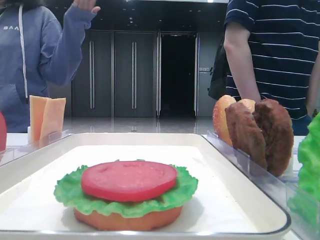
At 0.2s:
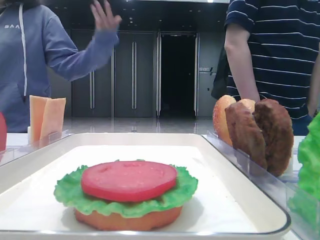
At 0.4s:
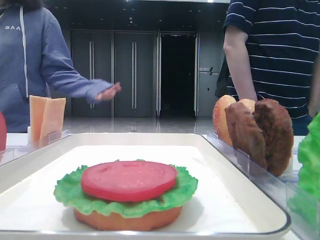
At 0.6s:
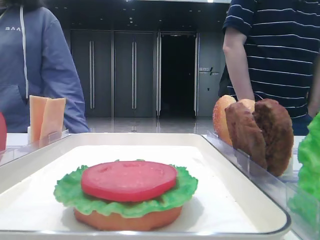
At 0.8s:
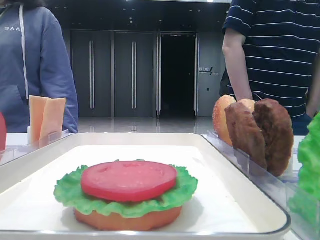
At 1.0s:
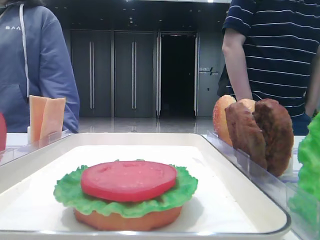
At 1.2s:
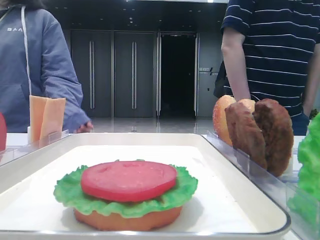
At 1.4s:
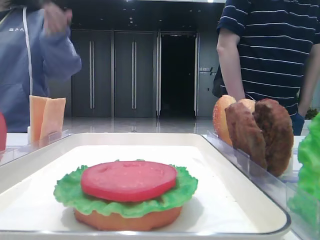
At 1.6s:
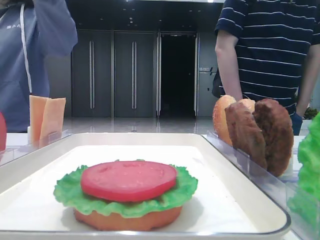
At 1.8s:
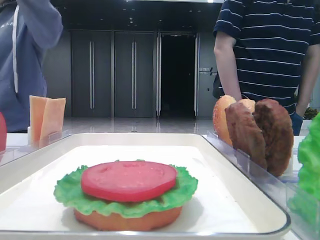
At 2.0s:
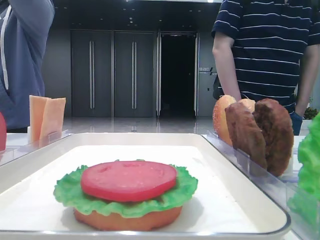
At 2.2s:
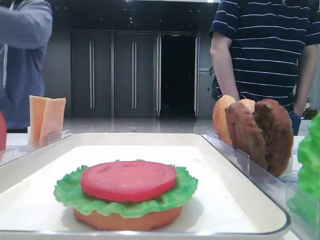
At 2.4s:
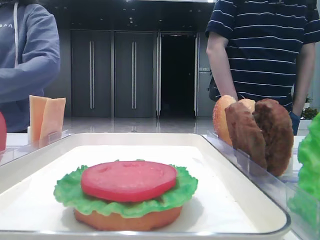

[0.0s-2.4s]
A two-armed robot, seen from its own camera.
0.0s to 2.4s: The grippers stay close to where they were, moving slightly.

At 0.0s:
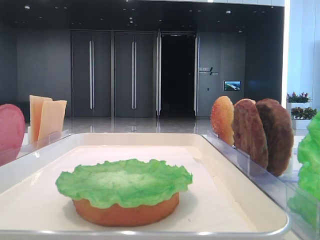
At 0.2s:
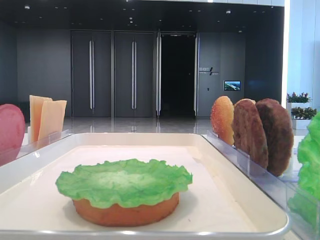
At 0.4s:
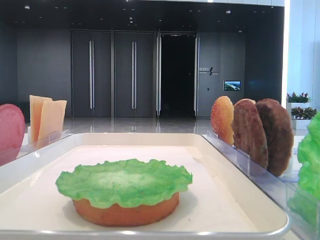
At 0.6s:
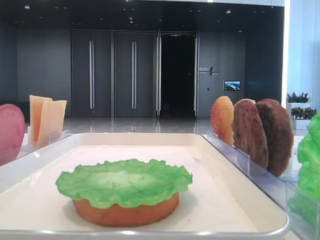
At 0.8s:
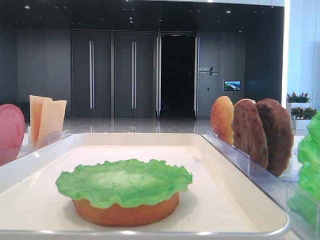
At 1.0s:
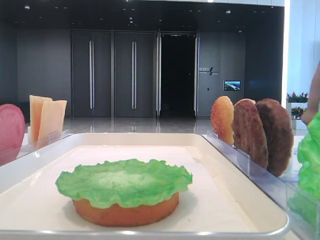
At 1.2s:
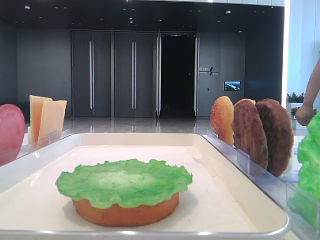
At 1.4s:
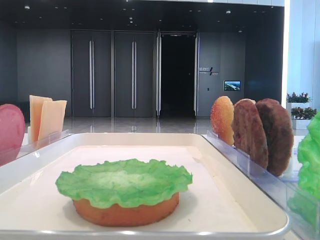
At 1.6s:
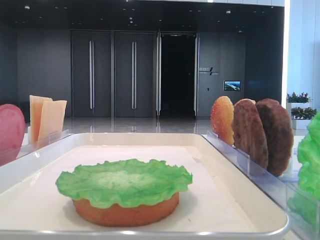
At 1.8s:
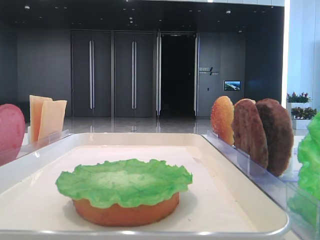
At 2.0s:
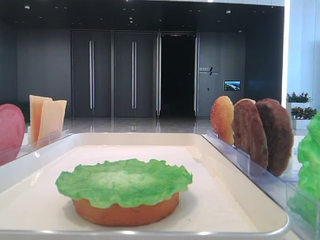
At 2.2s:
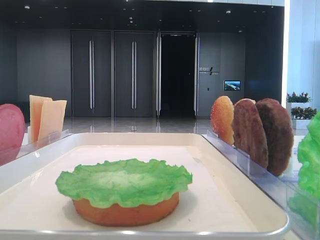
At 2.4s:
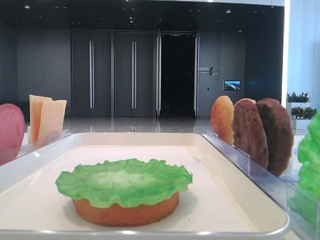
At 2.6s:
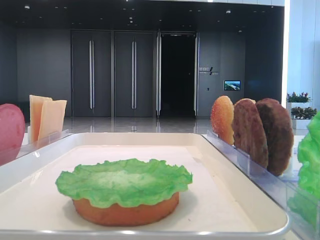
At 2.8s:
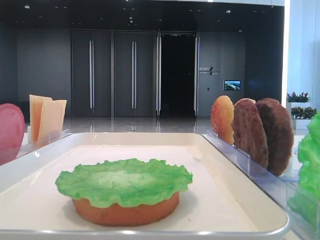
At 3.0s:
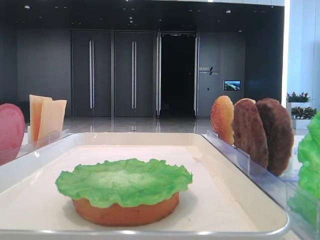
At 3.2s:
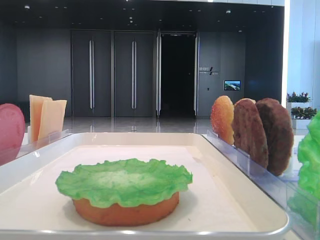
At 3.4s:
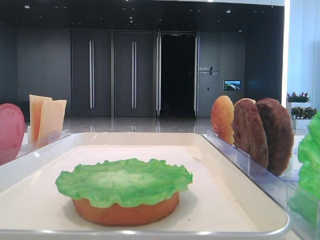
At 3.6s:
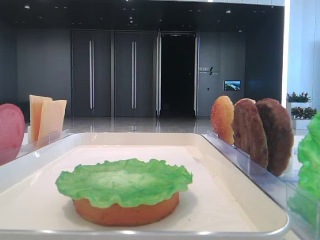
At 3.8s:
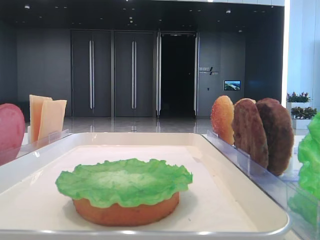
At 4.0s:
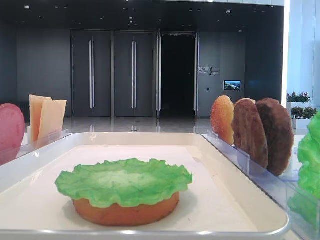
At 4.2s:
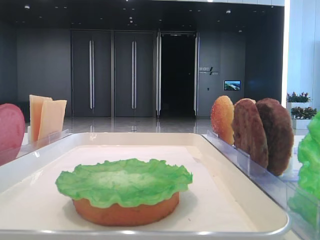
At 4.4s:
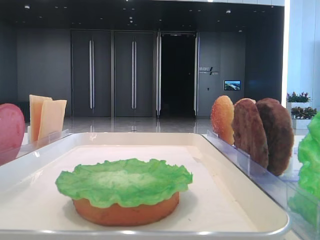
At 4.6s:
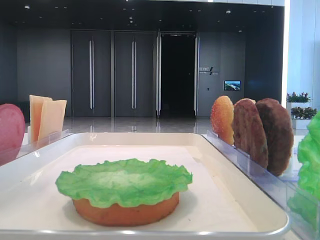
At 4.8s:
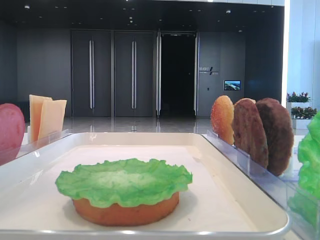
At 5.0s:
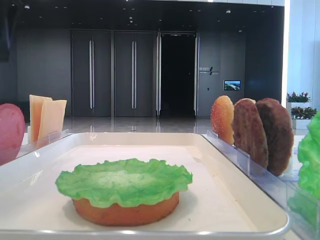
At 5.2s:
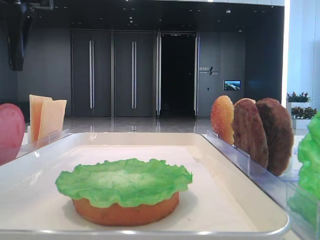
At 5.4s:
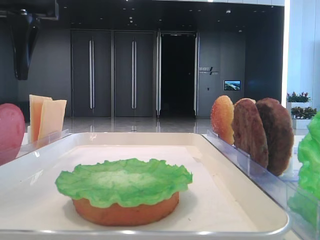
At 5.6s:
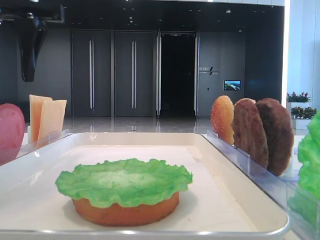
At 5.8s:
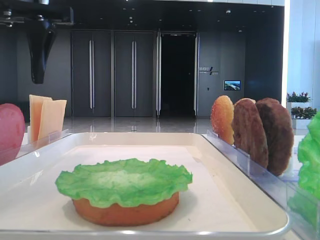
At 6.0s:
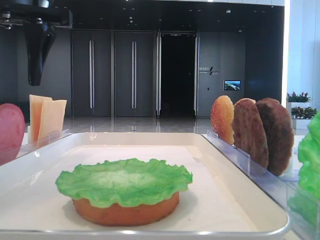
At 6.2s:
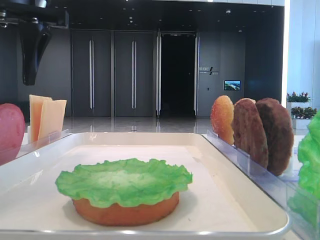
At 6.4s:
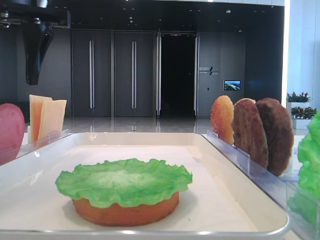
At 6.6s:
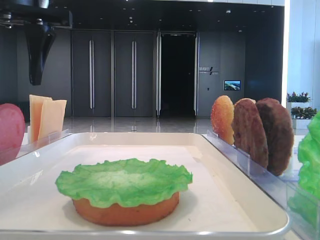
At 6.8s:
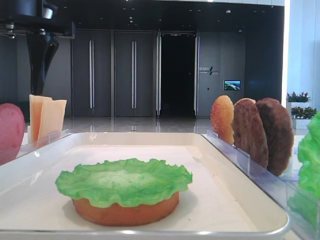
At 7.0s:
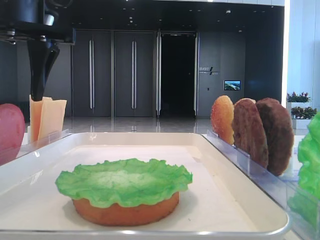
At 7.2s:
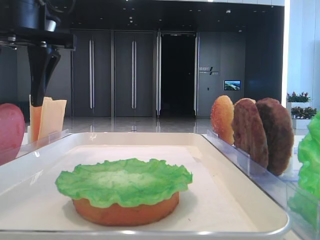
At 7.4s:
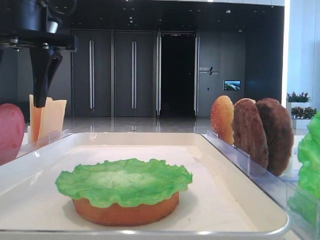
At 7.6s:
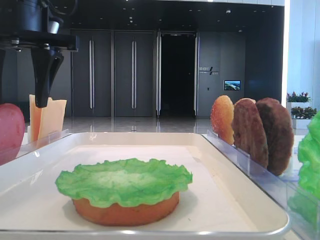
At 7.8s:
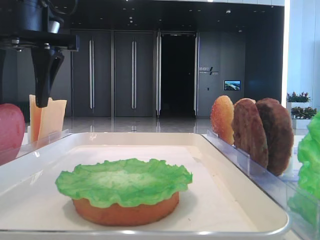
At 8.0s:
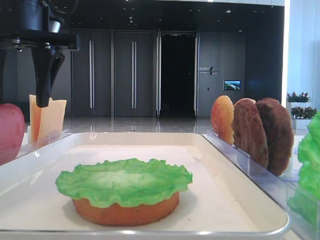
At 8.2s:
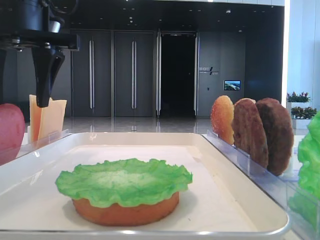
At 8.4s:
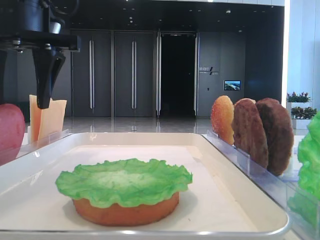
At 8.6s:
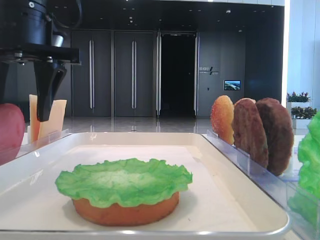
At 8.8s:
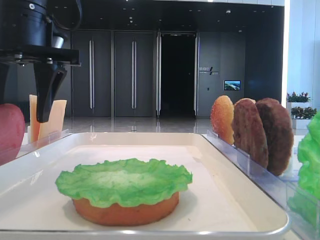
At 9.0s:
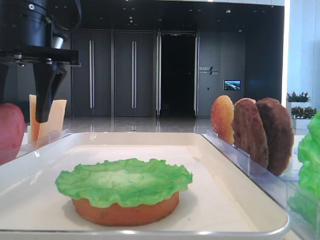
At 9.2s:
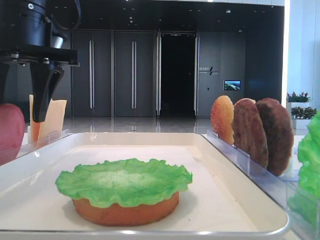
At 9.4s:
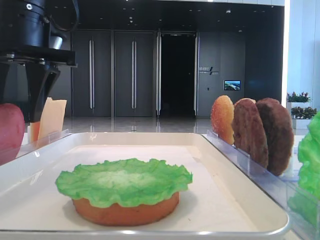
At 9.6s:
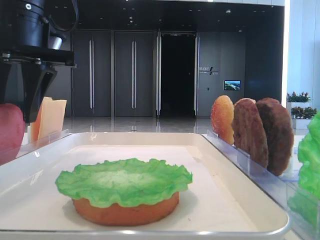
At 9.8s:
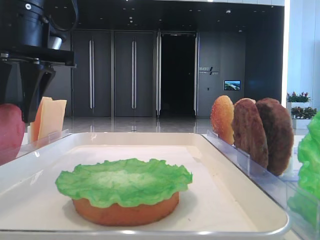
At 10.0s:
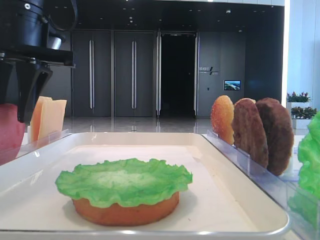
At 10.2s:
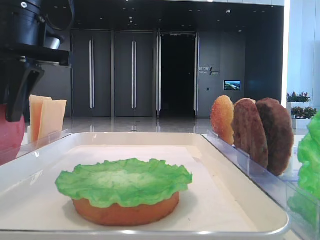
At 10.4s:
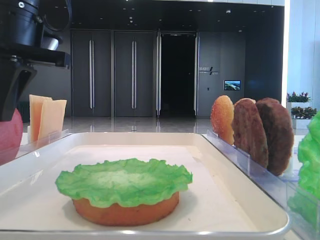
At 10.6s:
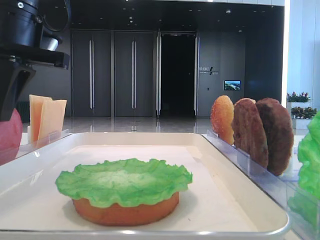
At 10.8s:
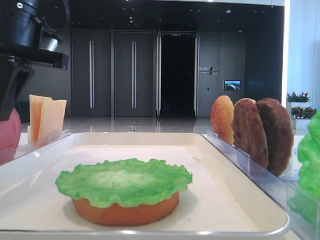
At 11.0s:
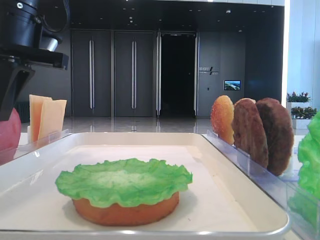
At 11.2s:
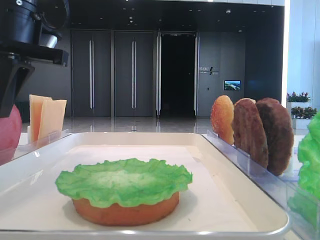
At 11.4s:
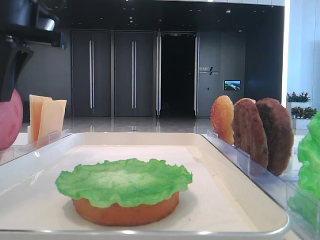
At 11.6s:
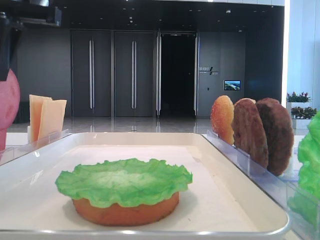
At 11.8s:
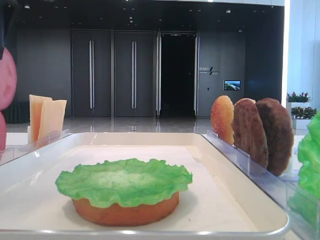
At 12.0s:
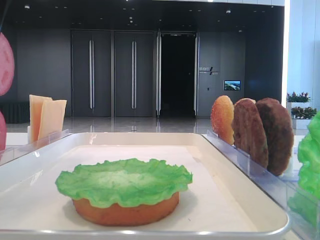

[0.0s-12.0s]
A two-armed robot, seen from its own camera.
Step, 0.0s to 10.8s: Pick up the tomato slice with the left hand.
4.4s to 6.0s: The left gripper moves to the right, forward and downward, roughly 15 cm.
6.0s to 9.0s: The grippers move only a little.
9.0s to 10.4s: The left gripper closes its fingers.
10.4s to 12.0s: The left gripper is displaced upward by roughly 10 cm.

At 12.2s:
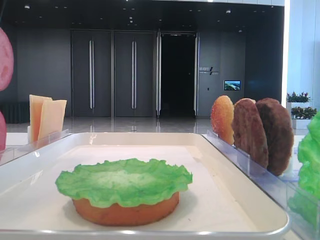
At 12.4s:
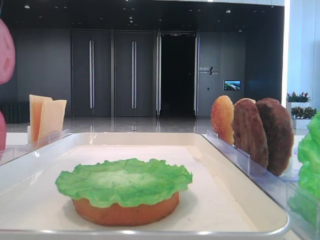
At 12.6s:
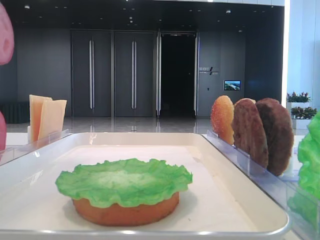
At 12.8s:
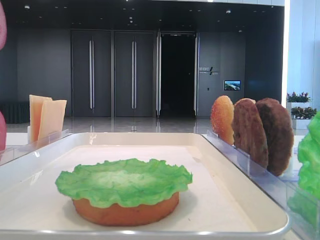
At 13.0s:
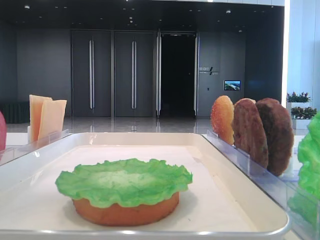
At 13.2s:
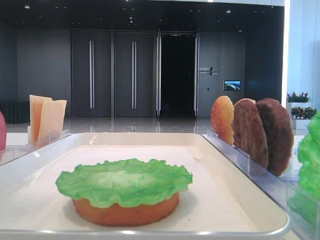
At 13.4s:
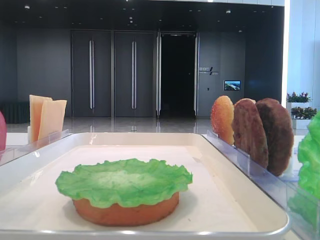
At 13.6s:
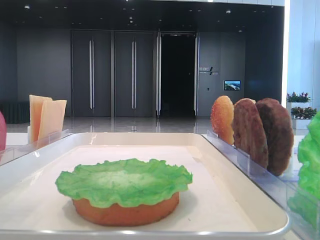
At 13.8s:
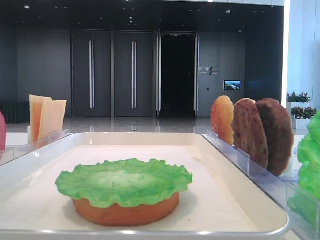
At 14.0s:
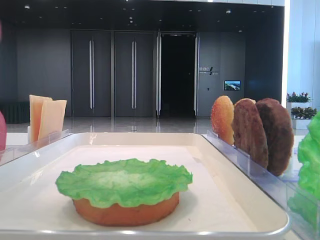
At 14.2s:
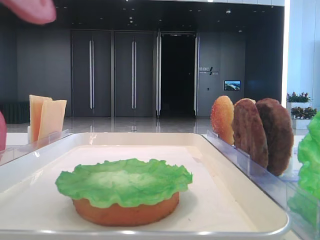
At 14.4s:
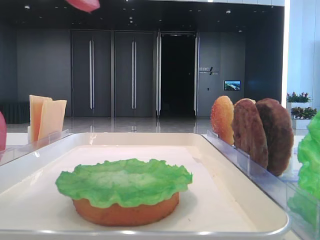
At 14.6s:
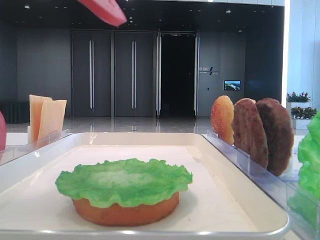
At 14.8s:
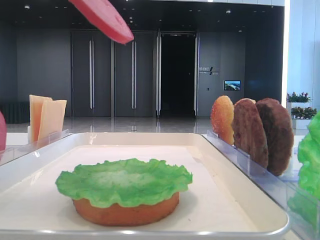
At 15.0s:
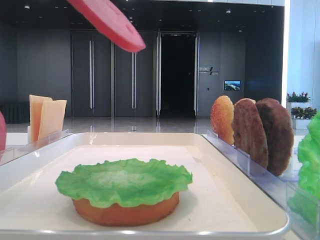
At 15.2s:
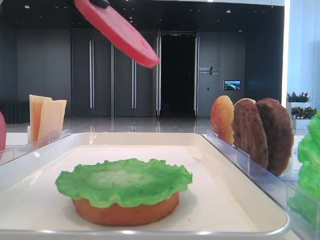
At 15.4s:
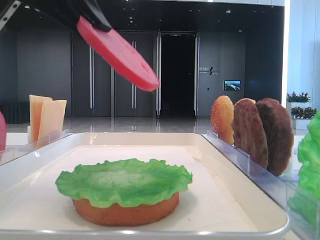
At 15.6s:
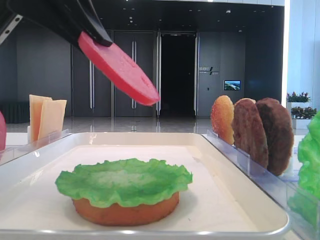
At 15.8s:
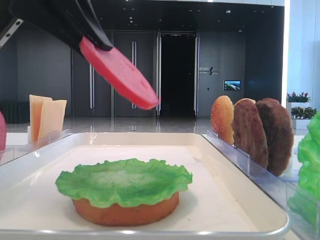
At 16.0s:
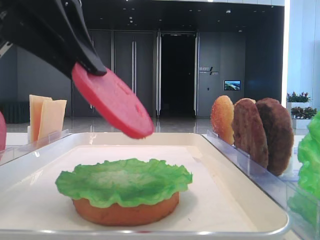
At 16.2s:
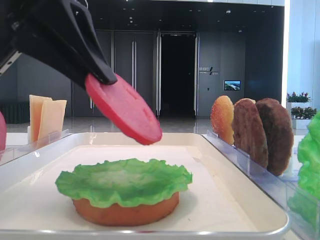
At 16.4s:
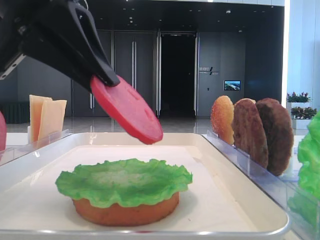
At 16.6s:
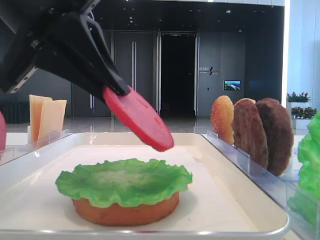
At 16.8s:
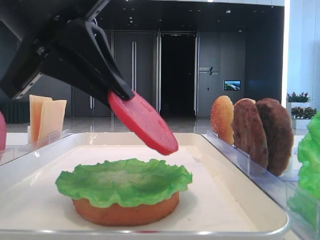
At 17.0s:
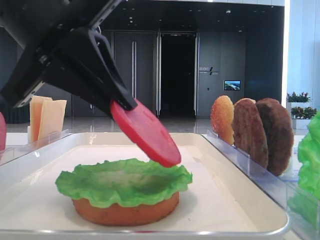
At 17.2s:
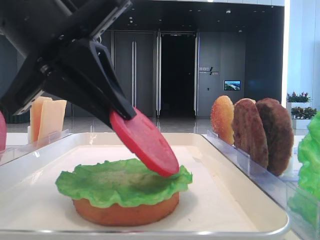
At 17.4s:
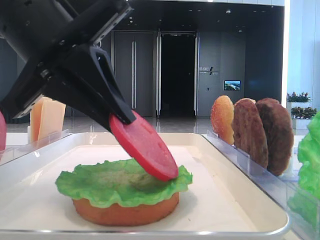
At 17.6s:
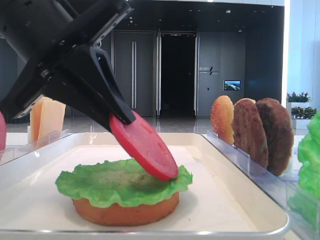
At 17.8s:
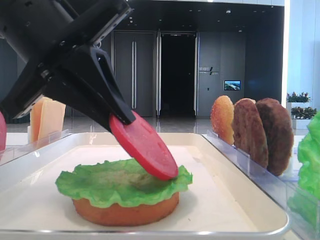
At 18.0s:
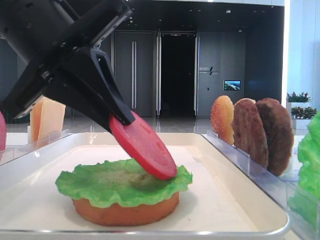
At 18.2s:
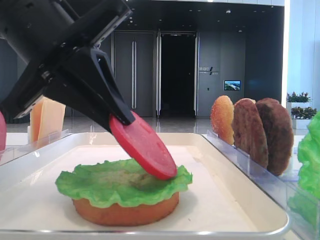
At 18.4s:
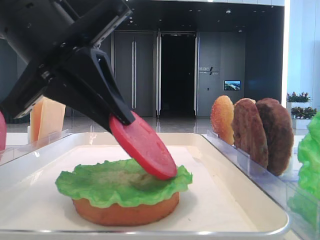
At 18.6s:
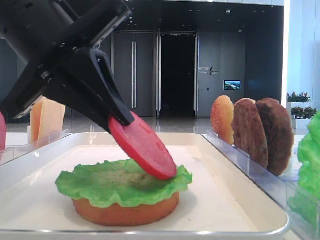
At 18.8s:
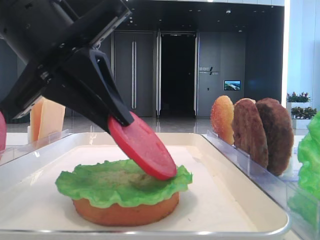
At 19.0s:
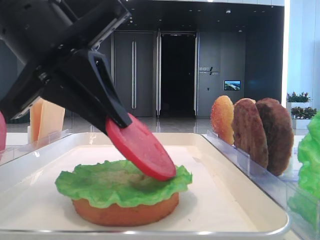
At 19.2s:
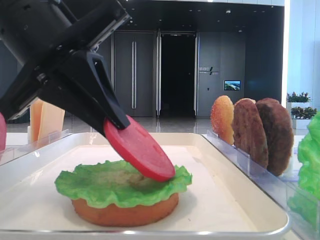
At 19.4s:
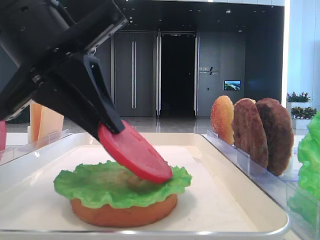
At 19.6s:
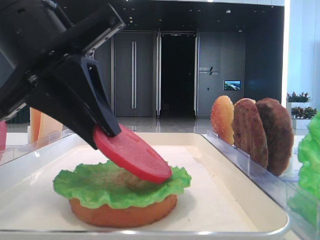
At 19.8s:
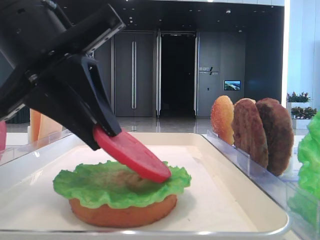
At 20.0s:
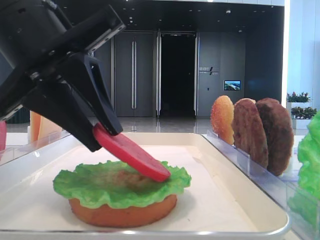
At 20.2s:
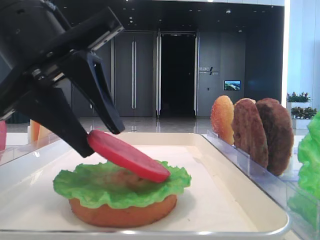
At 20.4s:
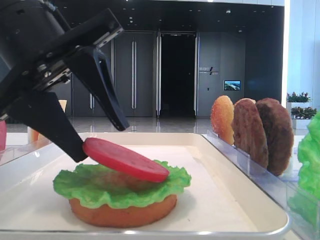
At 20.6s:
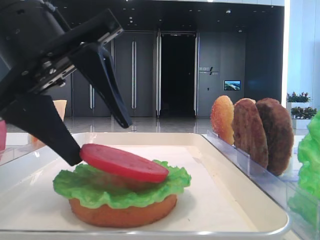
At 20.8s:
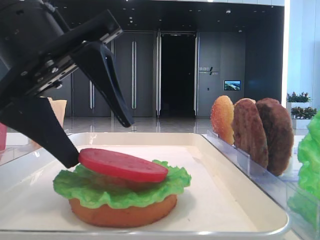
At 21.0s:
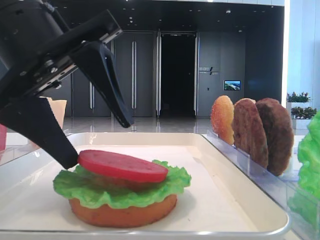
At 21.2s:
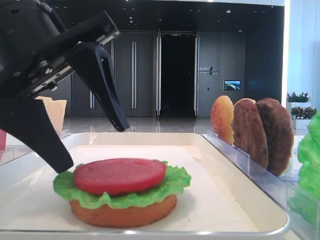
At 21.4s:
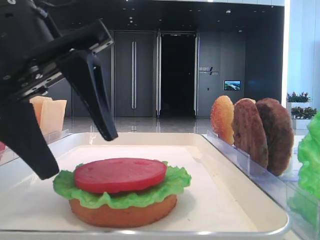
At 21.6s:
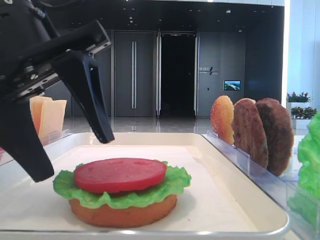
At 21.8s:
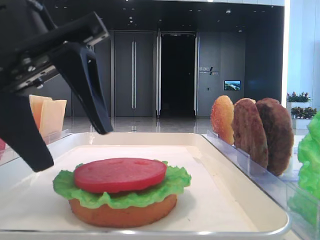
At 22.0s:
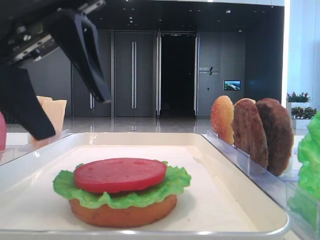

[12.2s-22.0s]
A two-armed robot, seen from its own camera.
Step, 12.2s to 21.2s: Place the tomato slice on the lettuce leaf with the left hand.
12.2s to 13.6s: The left gripper is displaced backward by some 10 cm.
13.6s to 15.0s: The left gripper goes approximately 10 cm to the right.
15.0s to 16.4s: The left gripper is displaced downward by some 5 cm.
16.4s to 17.8s: There are only small adjustments of the grippers.
17.8s to 19.2s: Neither gripper changes place.
19.2s to 20.6s: The left gripper opens up.
20.6s to 22.0s: There are only small adjustments of the grippers.
